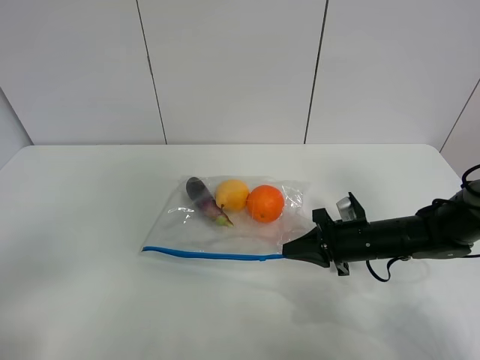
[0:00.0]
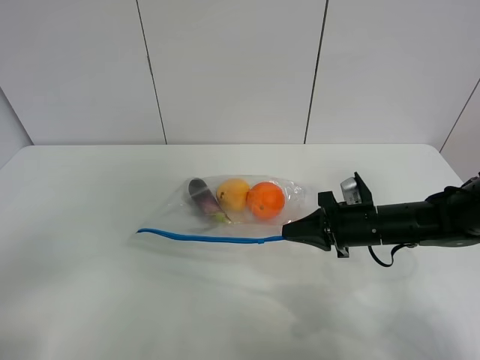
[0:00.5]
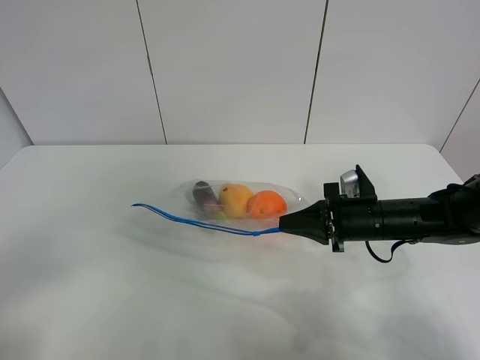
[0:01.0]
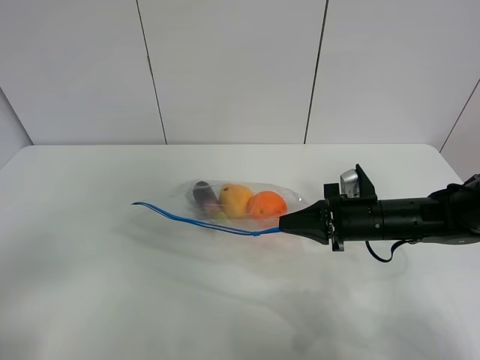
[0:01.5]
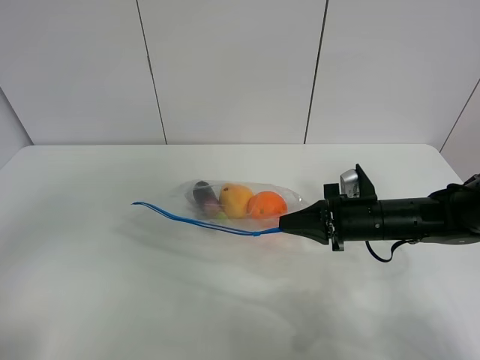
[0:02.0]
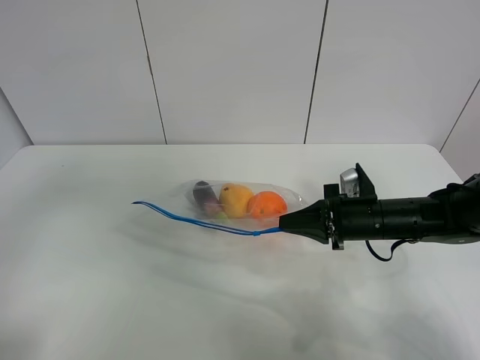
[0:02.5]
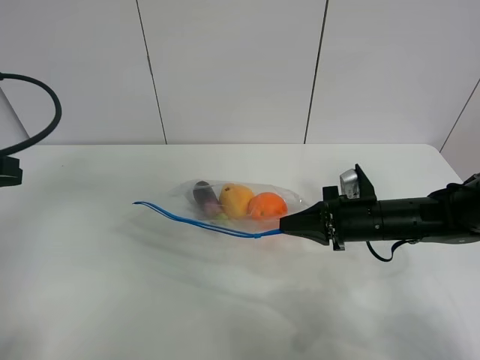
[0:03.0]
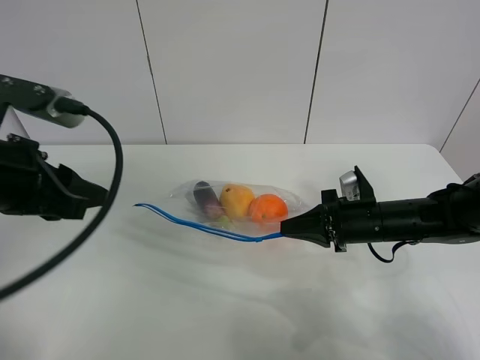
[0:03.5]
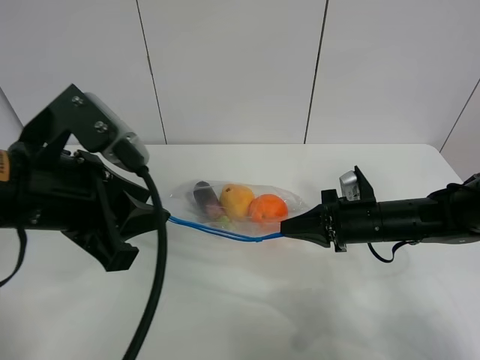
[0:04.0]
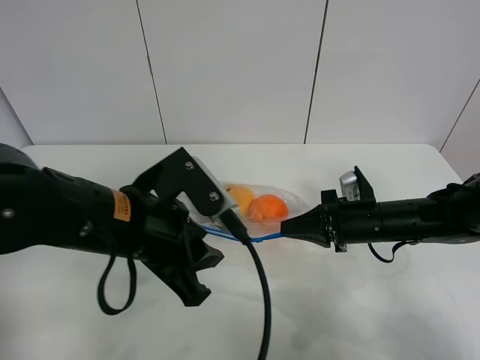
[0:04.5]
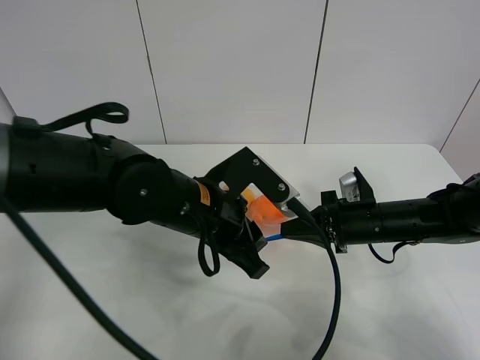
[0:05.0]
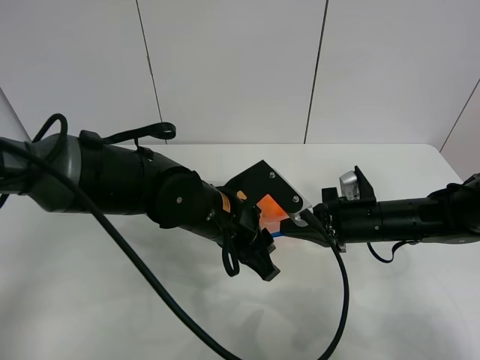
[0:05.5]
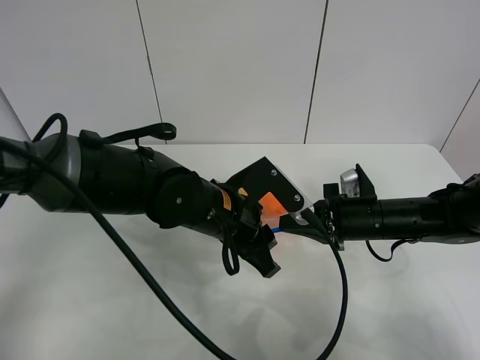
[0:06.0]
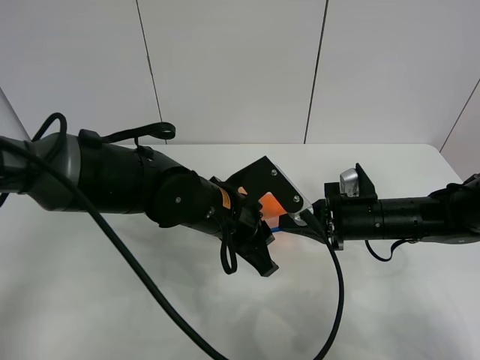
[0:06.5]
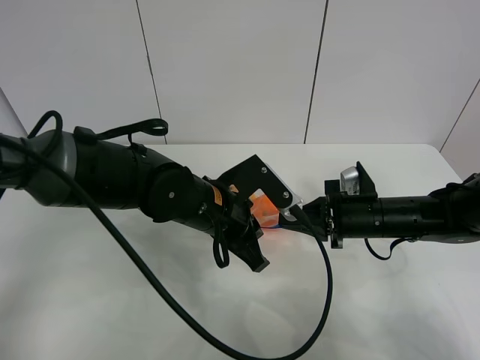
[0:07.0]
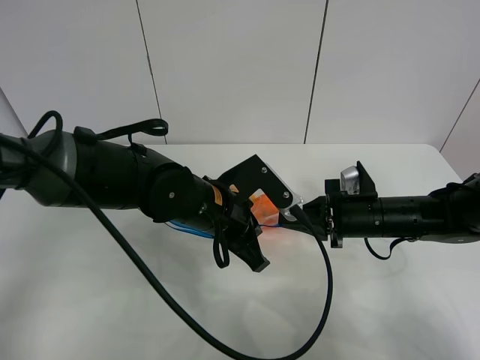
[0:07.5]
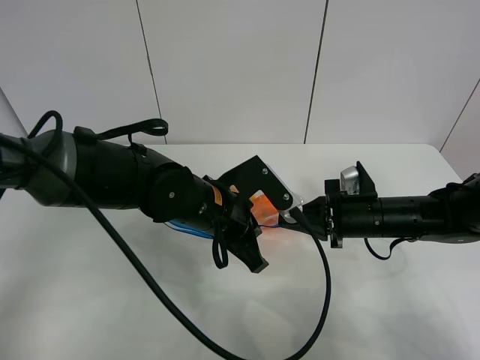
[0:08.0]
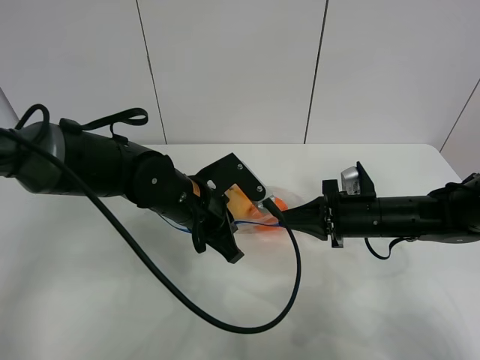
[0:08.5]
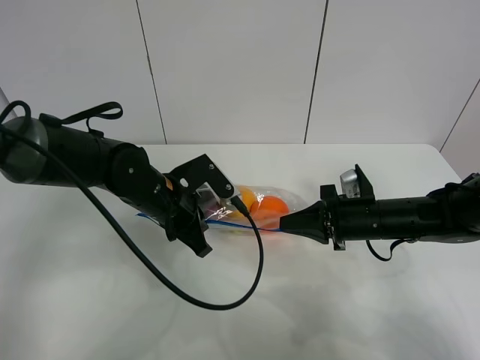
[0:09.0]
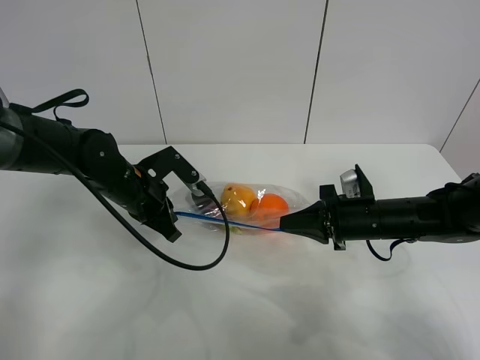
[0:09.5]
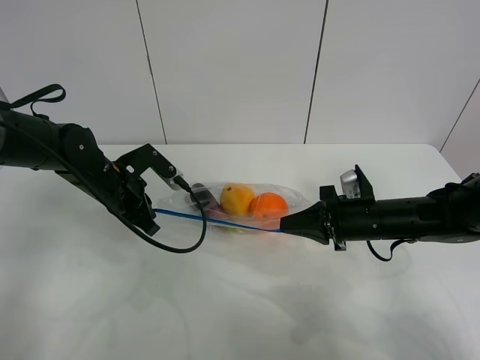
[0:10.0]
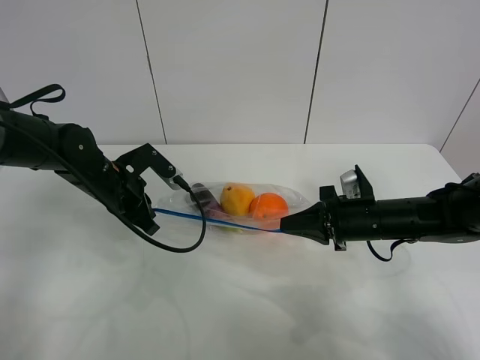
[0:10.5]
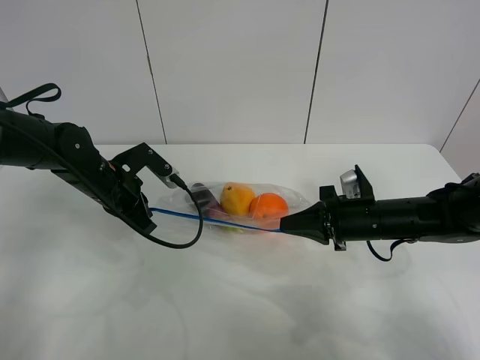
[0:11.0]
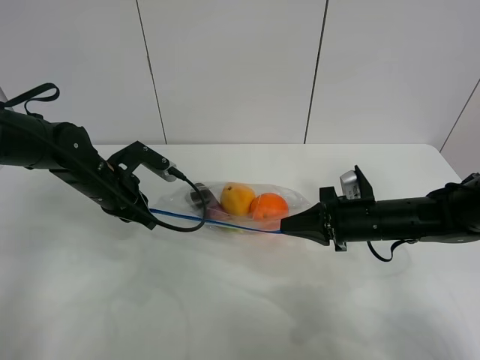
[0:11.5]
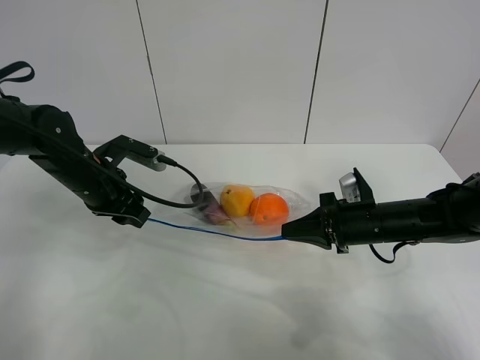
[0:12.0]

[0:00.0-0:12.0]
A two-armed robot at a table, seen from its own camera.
Step, 0:00.0 to 0:01.5: Lift the fruit bag with your right gripper.
0:00.0 to 0:02.0: The left gripper shifts roughly 10 cm forward and upward.
0:02.0 to 0:04.0: The left gripper is displaced to the right and forward by some 20 cm.
0:04.0 to 0:06.0: The left gripper travels to the right, downward and forward by some 20 cm.
0:06.0 to 0:08.0: The left gripper closes up.
0:08.0 to 0:10.0: The left gripper is displaced to the left and forward by approximately 20 cm.
0:10.0 to 0:12.0: The left gripper opens its fingers.

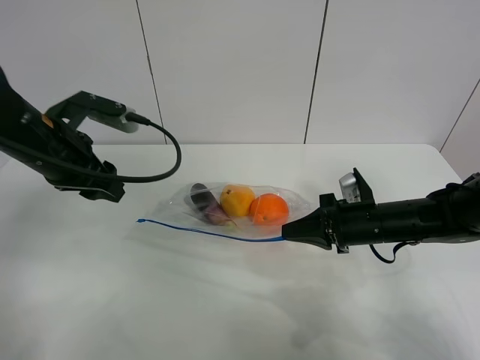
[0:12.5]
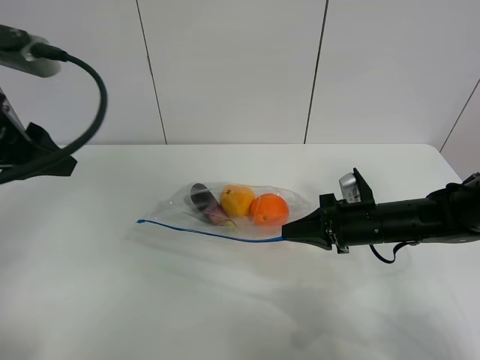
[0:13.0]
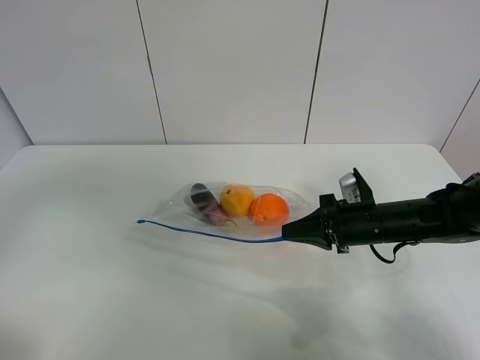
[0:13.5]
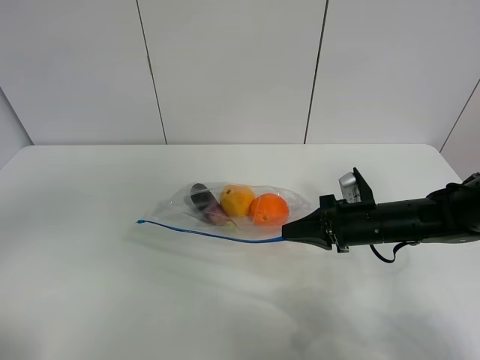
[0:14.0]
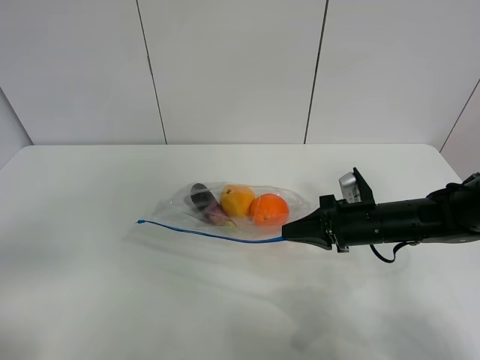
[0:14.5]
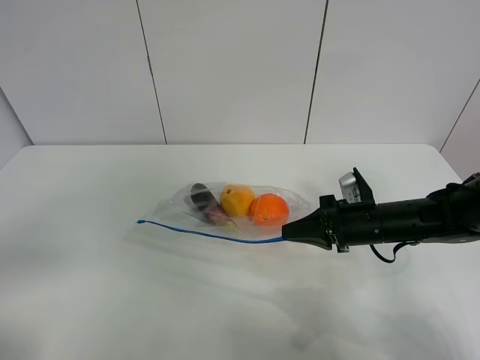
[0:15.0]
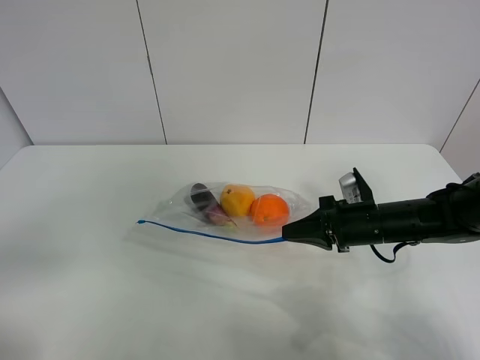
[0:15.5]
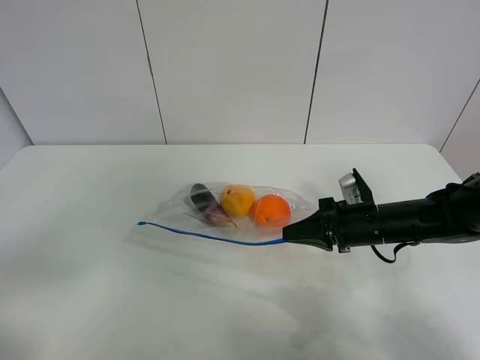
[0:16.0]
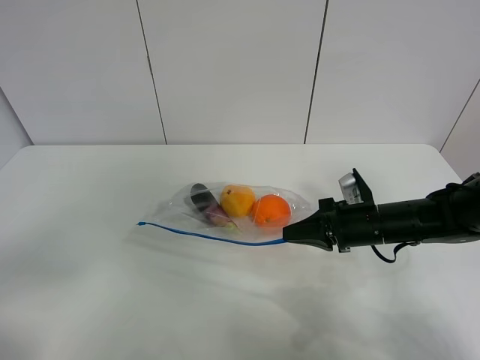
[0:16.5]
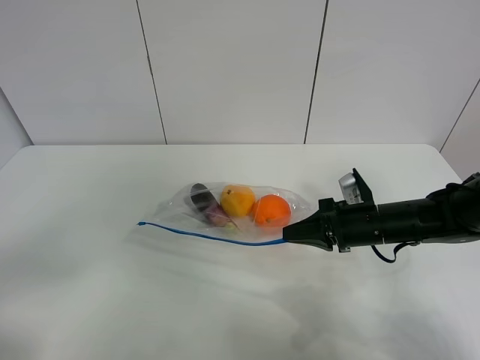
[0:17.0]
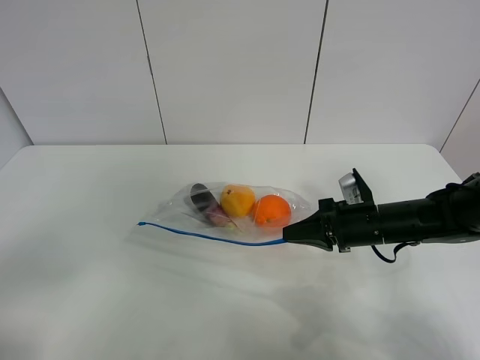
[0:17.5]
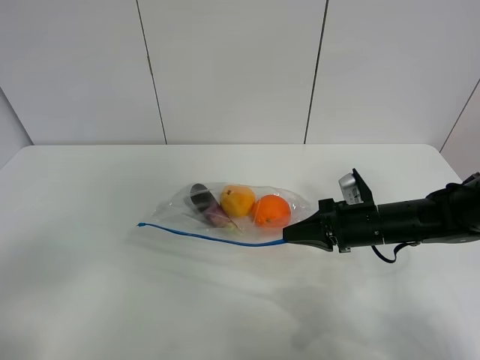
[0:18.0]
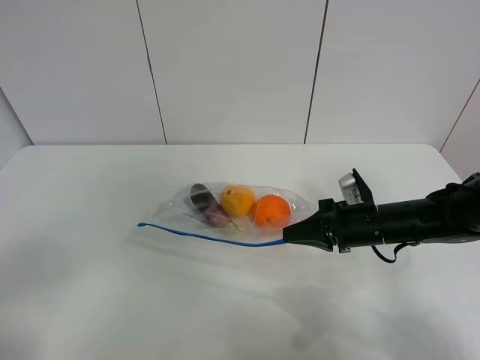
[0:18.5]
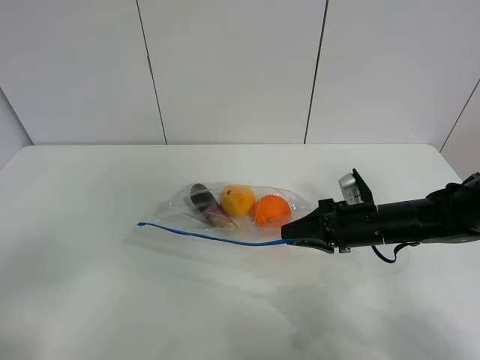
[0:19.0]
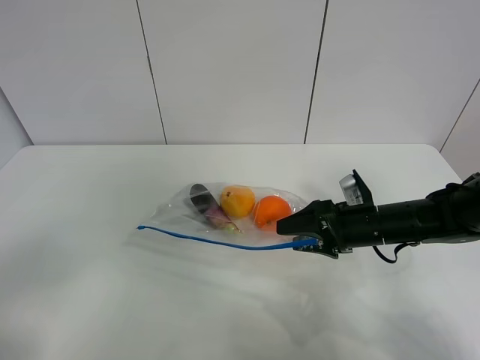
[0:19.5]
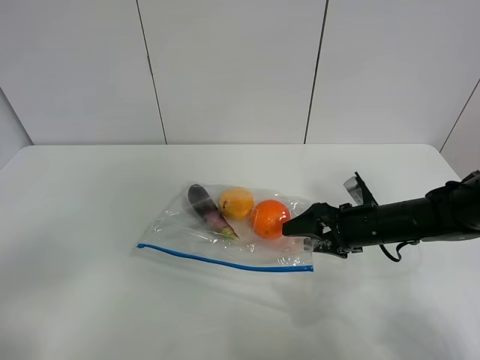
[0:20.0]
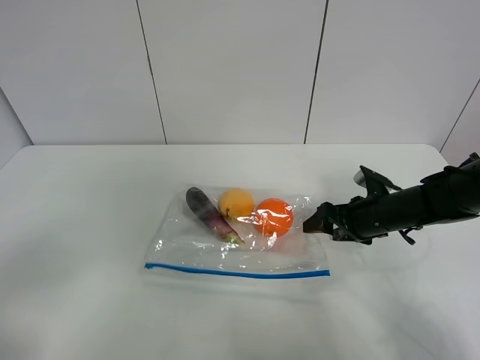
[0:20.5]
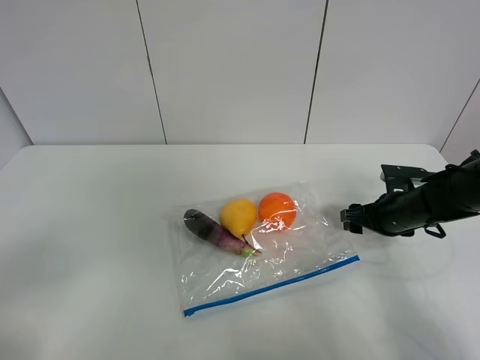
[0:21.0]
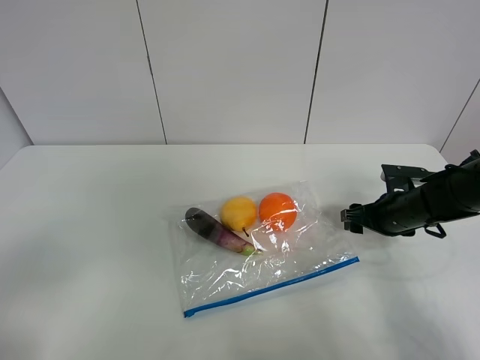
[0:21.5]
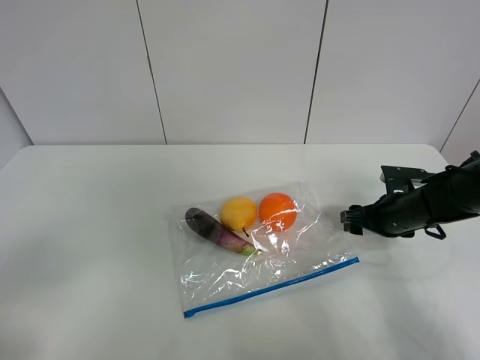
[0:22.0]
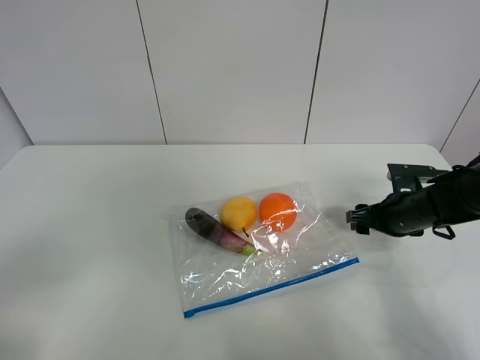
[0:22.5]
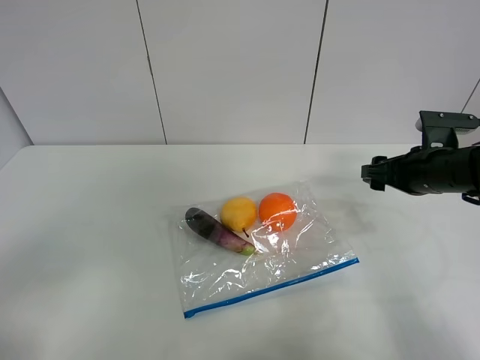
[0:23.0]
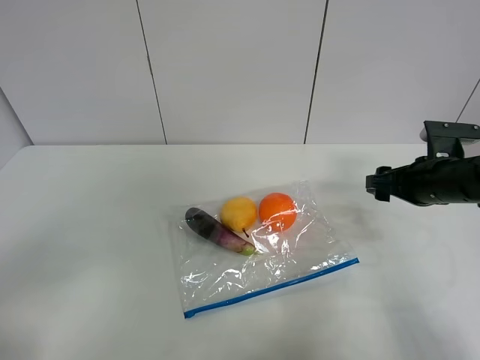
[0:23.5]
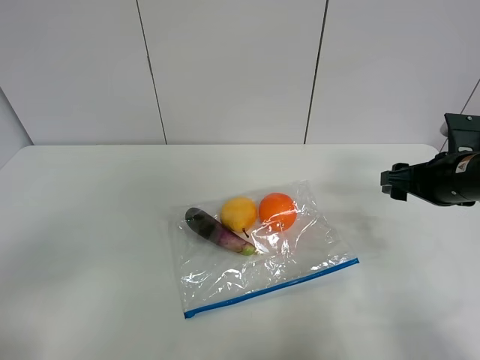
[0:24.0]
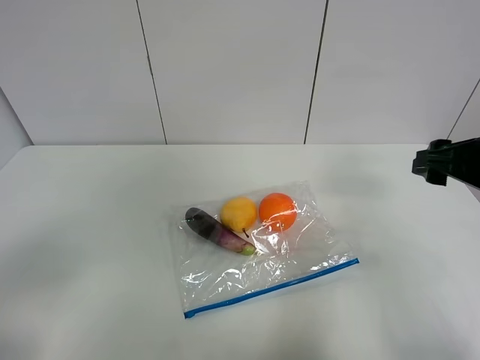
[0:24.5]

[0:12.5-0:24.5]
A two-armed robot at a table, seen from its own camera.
Step, 0:13.0 to 0:22.5: Place the fruit bag with right gripper.
0:12.5 to 0:14.5: The left gripper travels backward by approximately 30 cm.
0:14.5 to 0:16.5: The grippers stay close to where they were, moving slightly.
0:18.5 to 0:20.5: The right gripper moves roughly 5 cm, and opens.
0:22.5 to 0:24.5: The right gripper goes about 20 cm upward and backward.

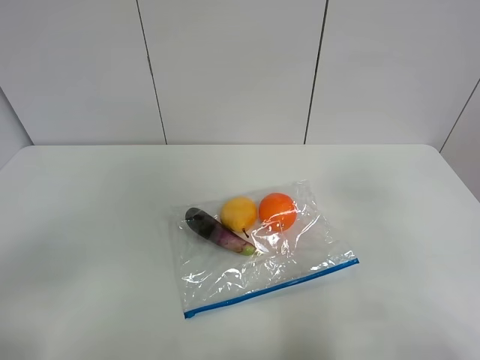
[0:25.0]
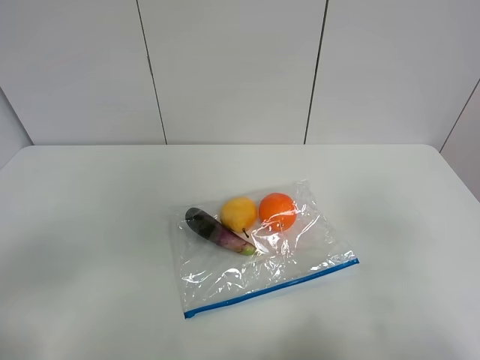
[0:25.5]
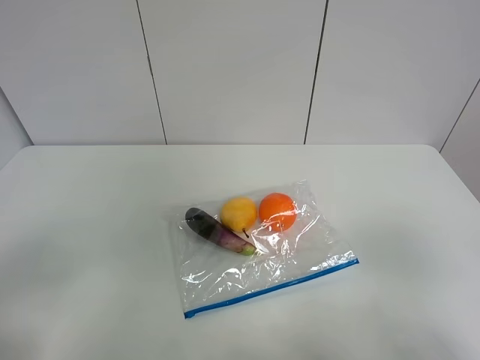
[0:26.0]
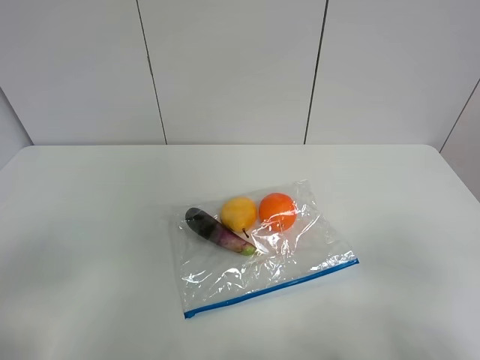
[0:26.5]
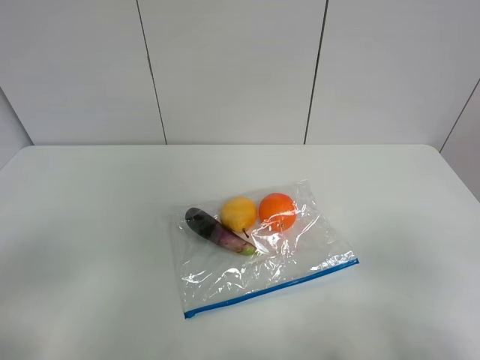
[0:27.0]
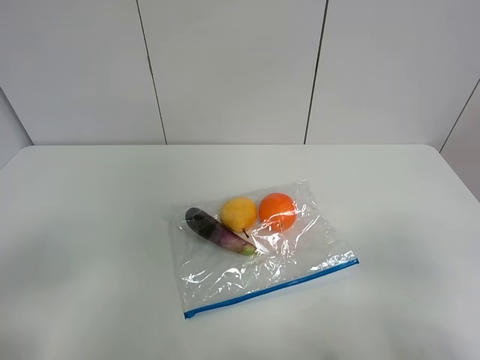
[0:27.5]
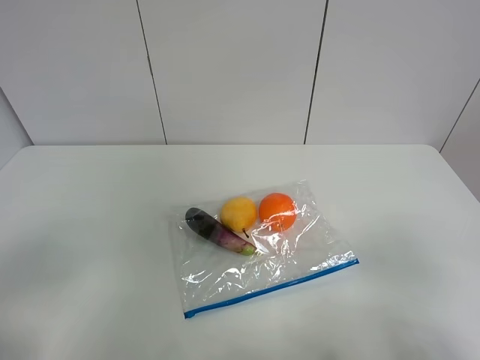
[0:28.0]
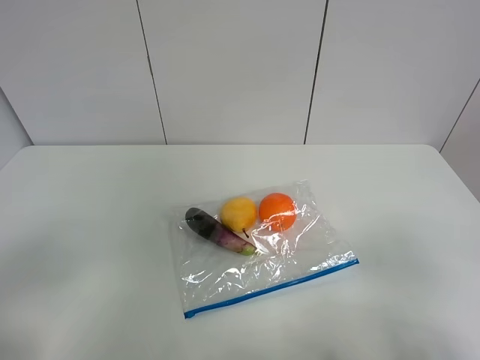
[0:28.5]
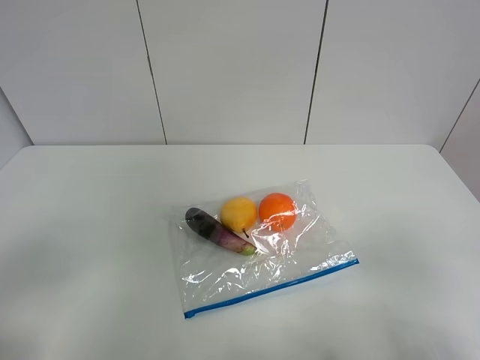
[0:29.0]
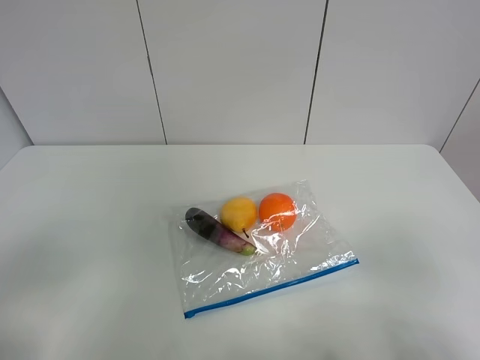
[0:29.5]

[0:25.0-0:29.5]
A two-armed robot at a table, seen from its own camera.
0:25.0 to 0:27.0: The right gripper goes roughly 15 cm backward and downward.
0:27.0 to 0:29.5: Neither gripper changes place.
